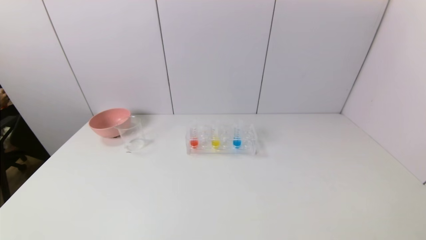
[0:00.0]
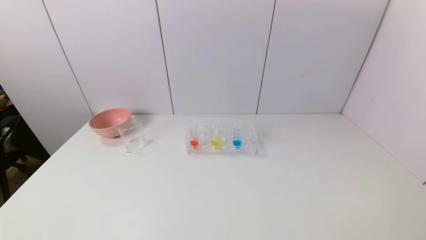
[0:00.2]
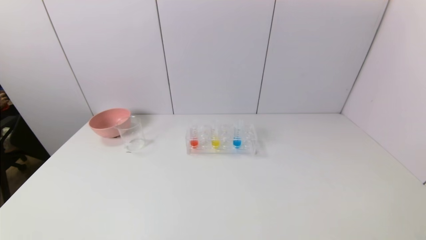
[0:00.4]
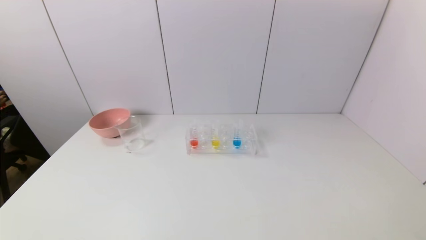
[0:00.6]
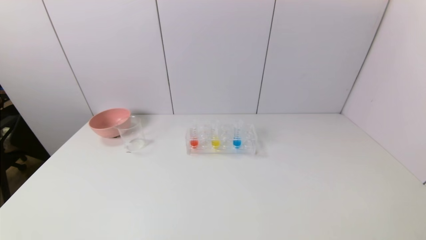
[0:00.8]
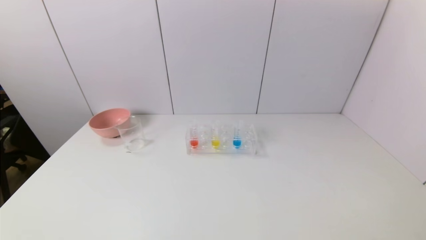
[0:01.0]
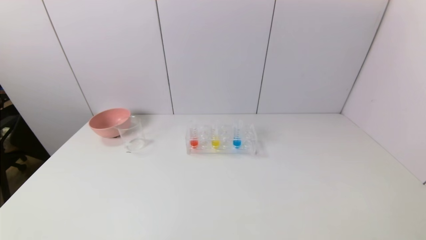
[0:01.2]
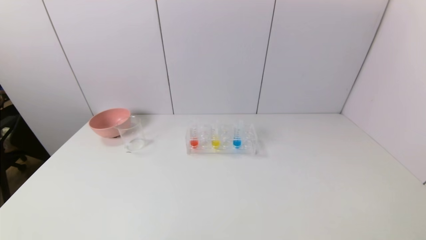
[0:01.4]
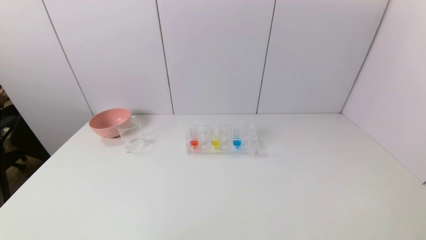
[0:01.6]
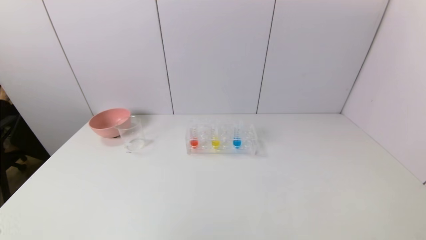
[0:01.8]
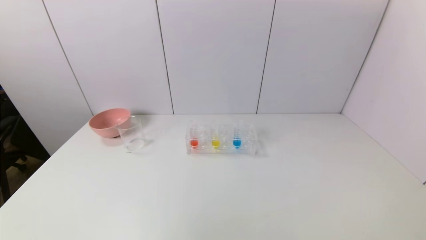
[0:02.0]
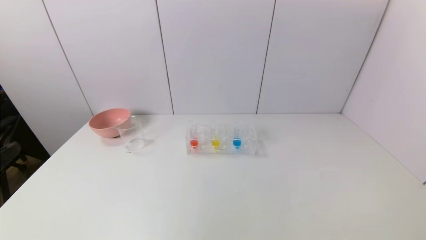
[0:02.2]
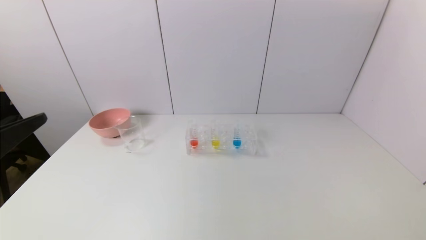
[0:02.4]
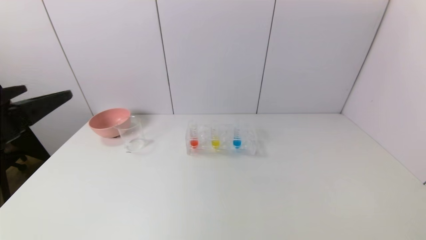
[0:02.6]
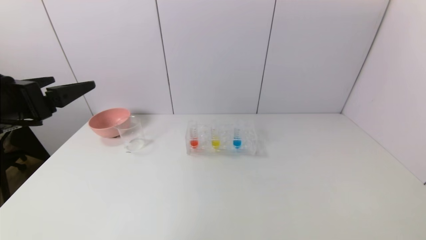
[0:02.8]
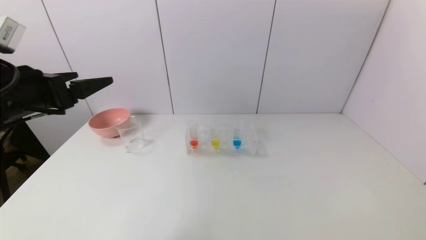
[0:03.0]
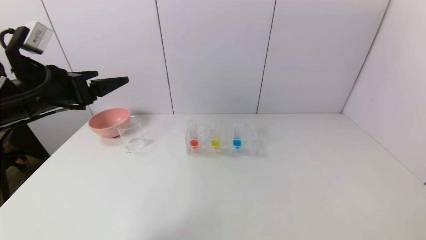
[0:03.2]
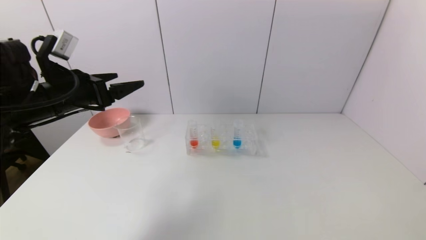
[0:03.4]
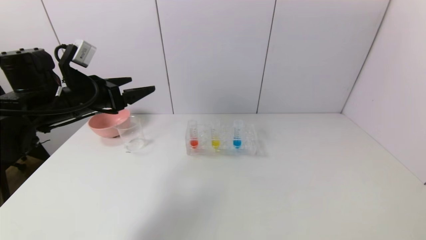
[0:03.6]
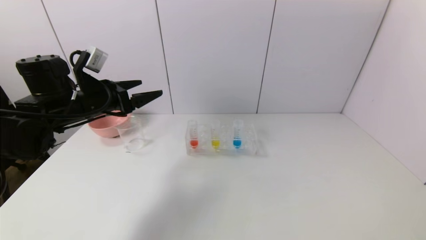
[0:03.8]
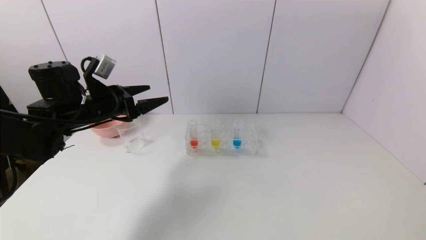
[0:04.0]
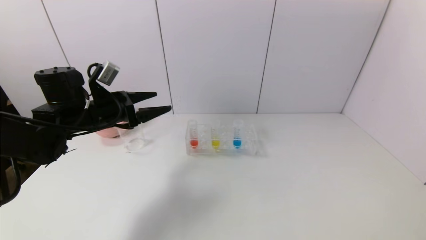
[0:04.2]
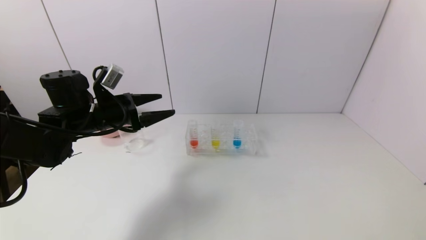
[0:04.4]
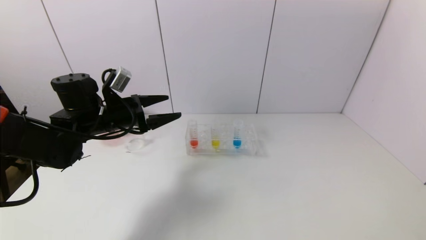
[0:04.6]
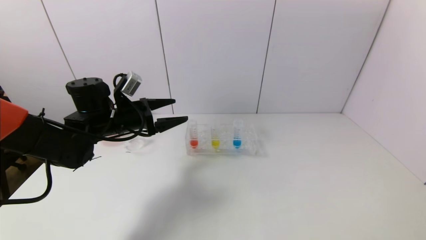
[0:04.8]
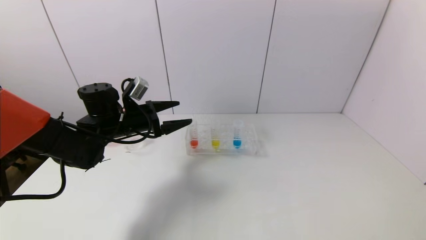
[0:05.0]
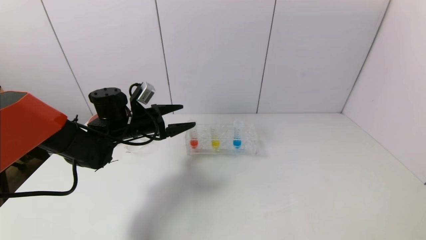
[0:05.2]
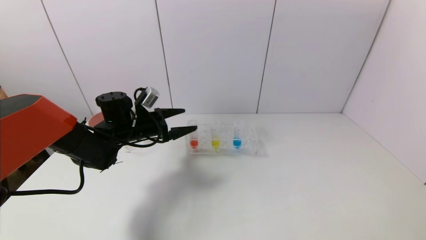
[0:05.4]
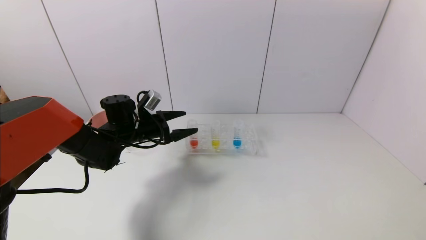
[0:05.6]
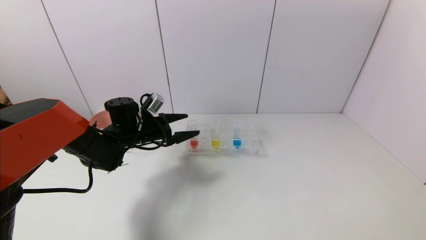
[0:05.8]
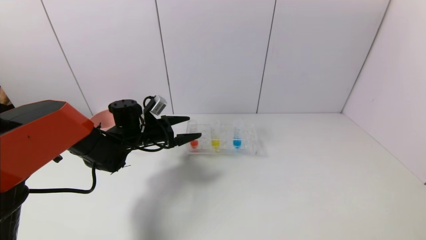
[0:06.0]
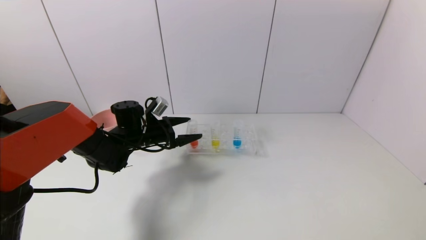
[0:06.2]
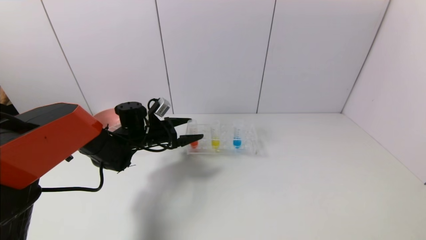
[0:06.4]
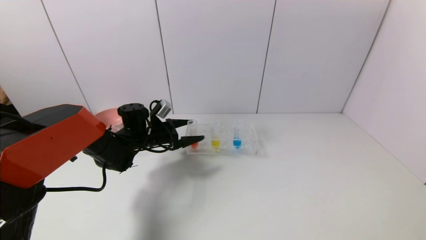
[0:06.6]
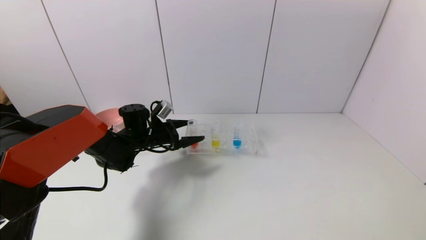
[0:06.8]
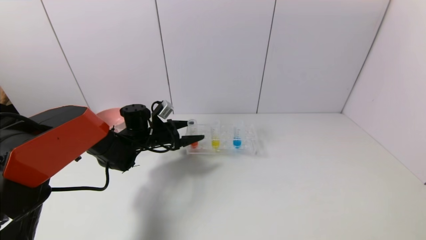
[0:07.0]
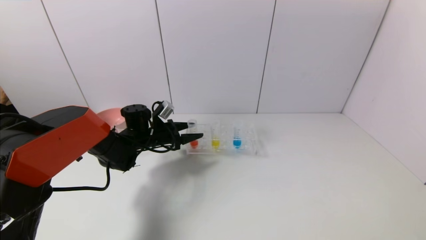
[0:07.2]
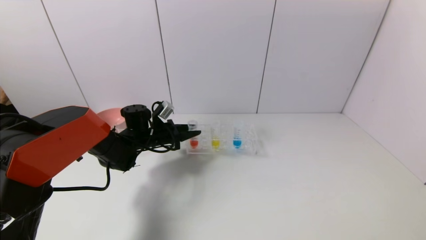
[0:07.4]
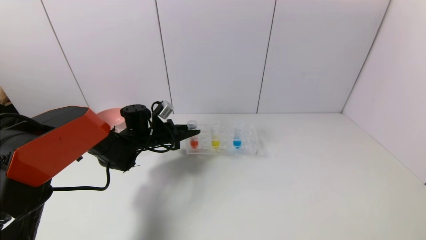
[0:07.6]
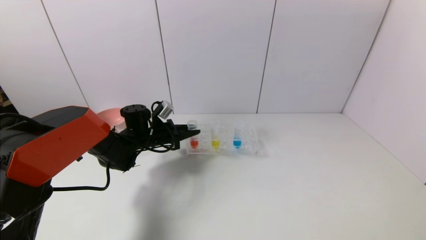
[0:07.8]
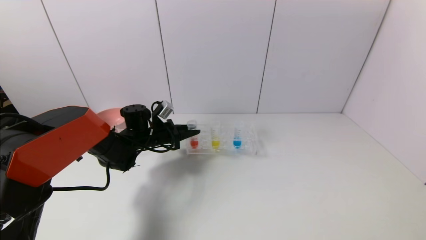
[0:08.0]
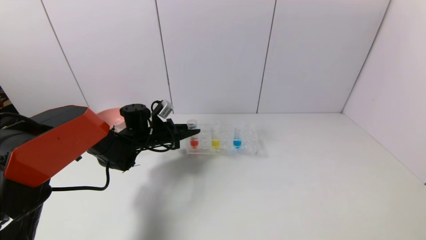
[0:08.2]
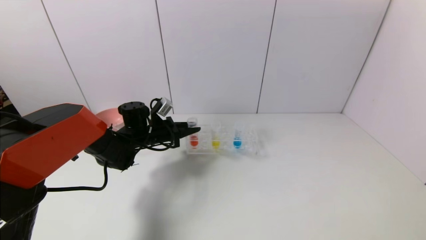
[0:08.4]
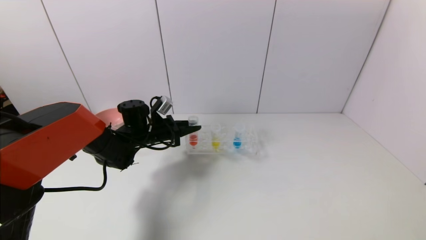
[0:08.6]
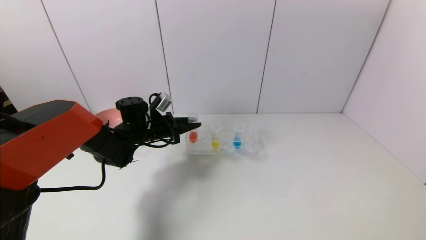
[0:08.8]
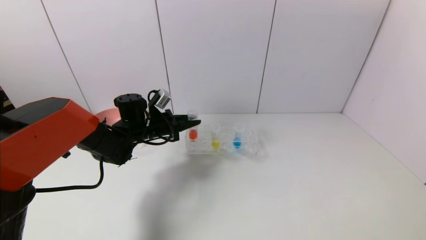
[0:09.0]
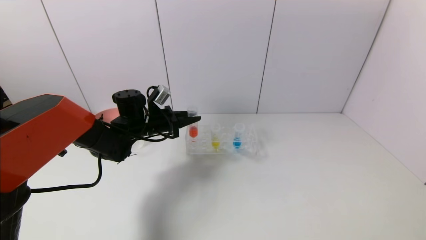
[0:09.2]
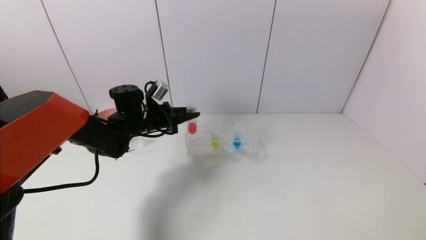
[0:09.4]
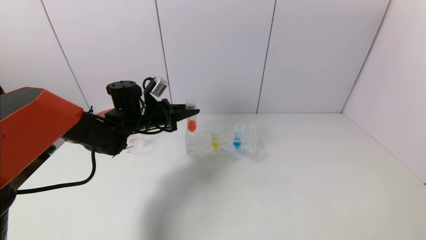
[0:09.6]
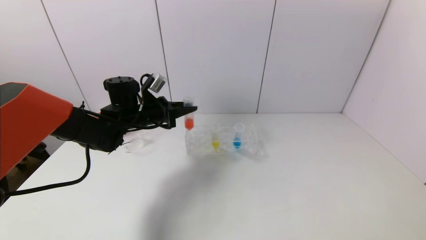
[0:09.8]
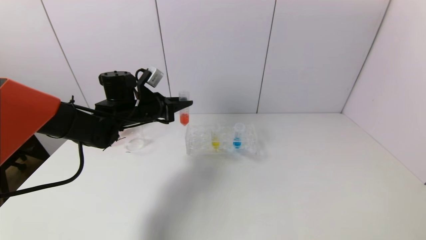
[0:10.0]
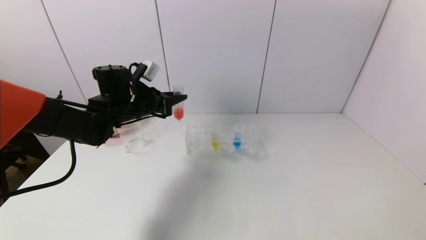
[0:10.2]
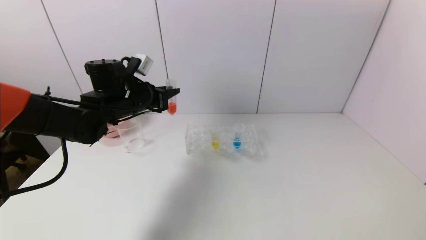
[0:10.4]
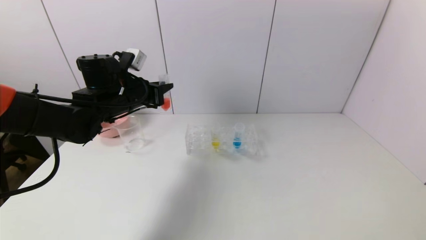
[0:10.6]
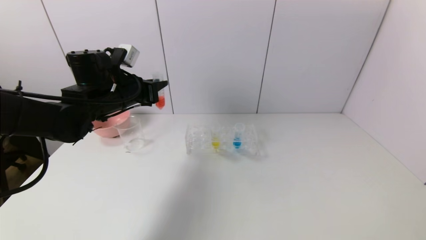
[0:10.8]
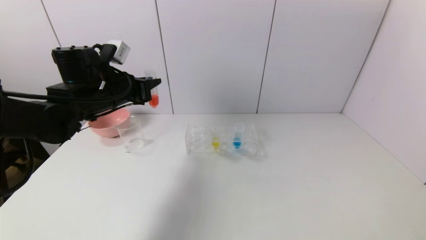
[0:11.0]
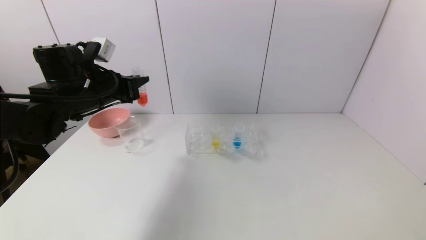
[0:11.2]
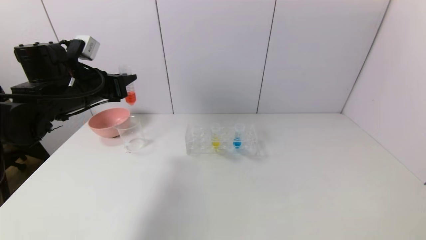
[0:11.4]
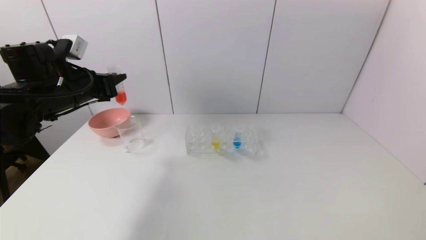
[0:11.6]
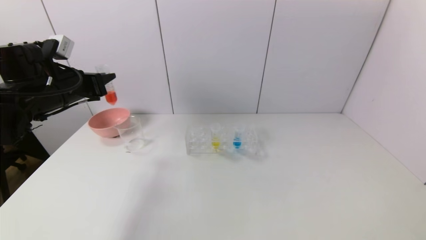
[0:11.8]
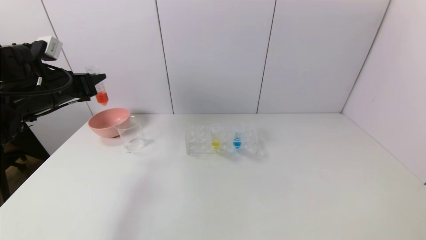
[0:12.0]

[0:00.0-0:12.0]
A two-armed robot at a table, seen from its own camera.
Task of the whole recording: pick up the test tube with red pigment and the test tube with blue pigment by grippers and pour them into the container.
Step, 0:00.0 to 0:08.0: Grasp the red reagent with the left gripper.
0:01.6 to 0:03.0: The left gripper is displaced forward and upward by about 30 cm.
0:03.0 to 0:04.4: The left gripper is displaced forward and downward by some 15 cm.
0:04.4 to 0:06.0: The left gripper heads downward, forward and to the right, covering about 10 cm.
0:06.0 to 0:07.6: The left gripper closes.
0:07.6 to 0:09.0: The grippers move only a little.
0:09.0 to 0:10.4: The left gripper shifts about 10 cm upward.
0:10.4 to 0:12.0: The left gripper moves to the left, roughly 15 cm.

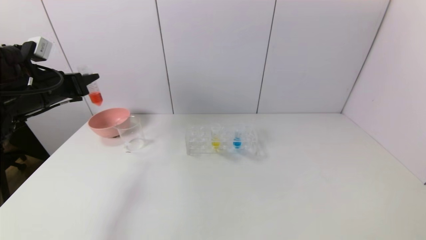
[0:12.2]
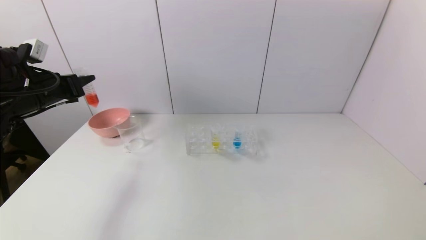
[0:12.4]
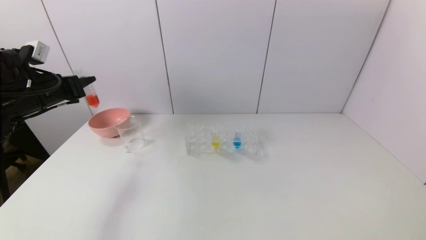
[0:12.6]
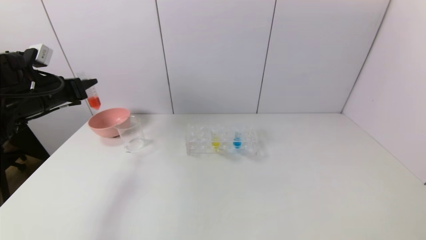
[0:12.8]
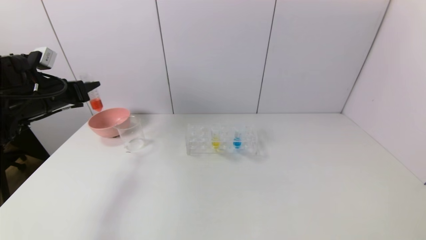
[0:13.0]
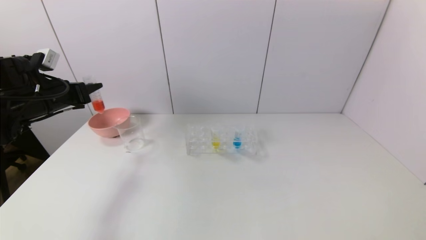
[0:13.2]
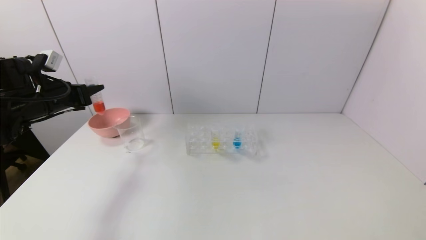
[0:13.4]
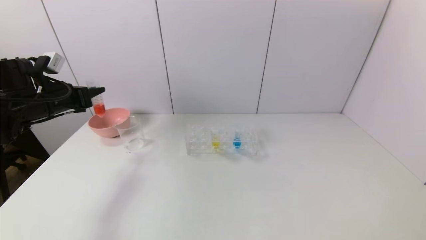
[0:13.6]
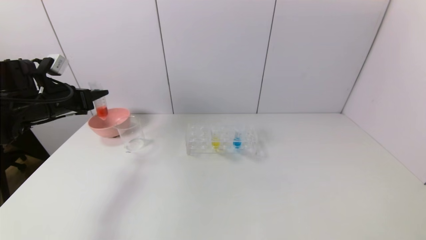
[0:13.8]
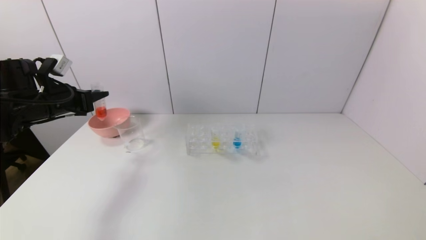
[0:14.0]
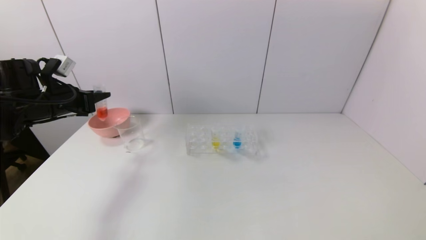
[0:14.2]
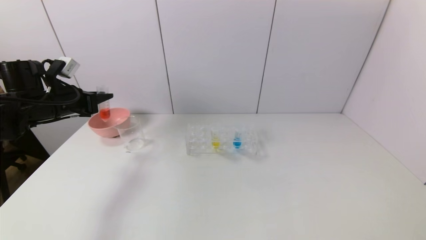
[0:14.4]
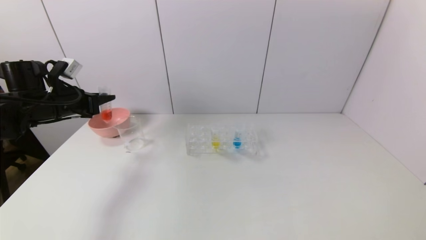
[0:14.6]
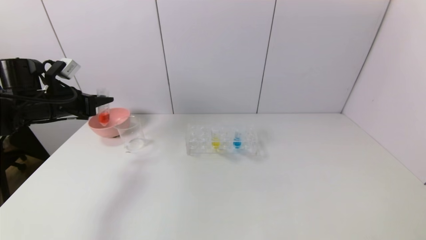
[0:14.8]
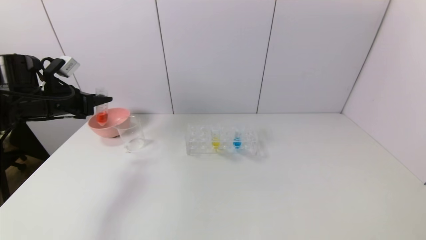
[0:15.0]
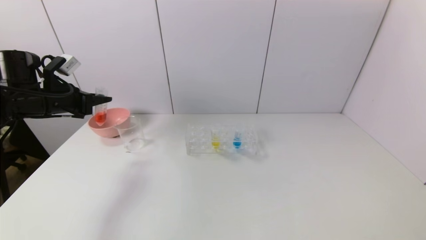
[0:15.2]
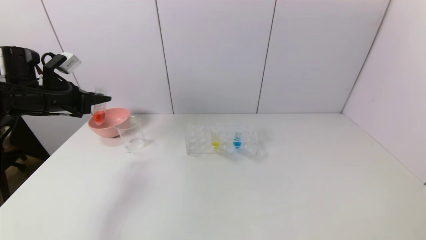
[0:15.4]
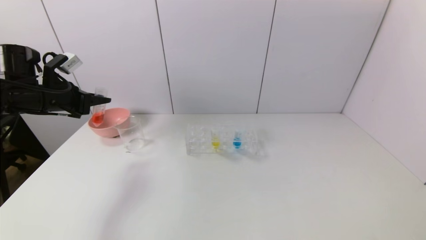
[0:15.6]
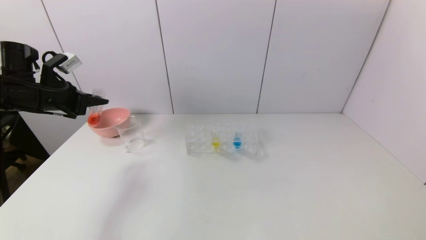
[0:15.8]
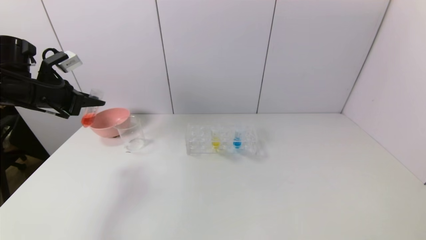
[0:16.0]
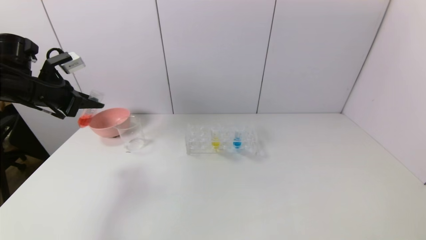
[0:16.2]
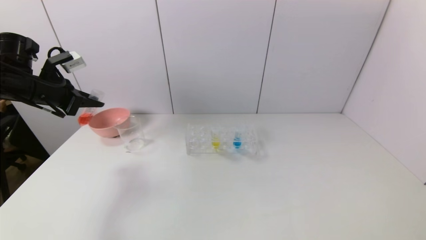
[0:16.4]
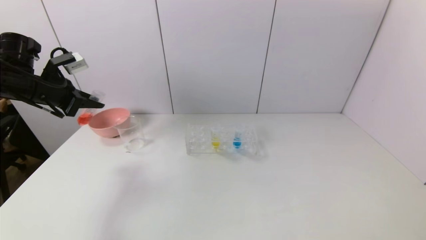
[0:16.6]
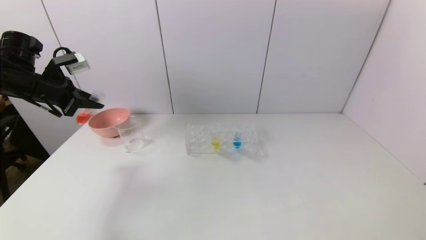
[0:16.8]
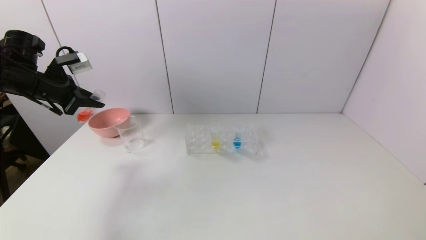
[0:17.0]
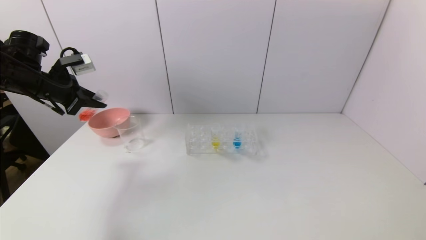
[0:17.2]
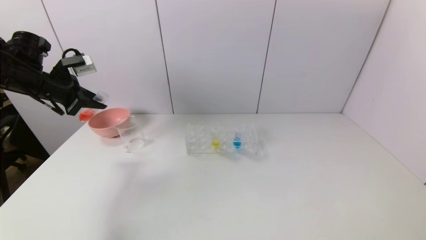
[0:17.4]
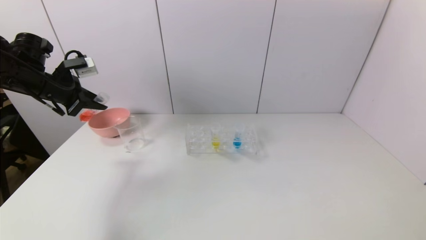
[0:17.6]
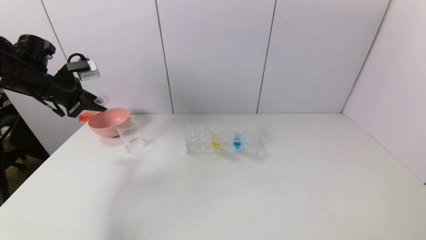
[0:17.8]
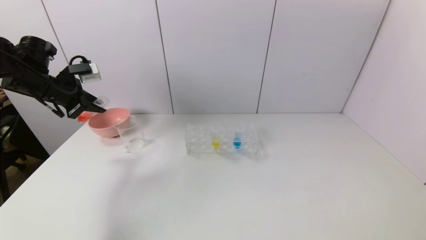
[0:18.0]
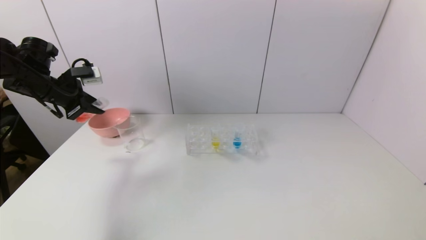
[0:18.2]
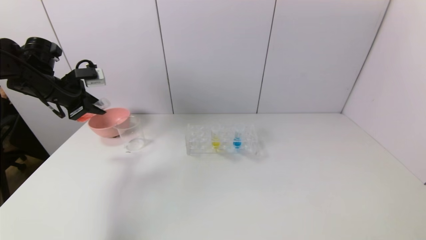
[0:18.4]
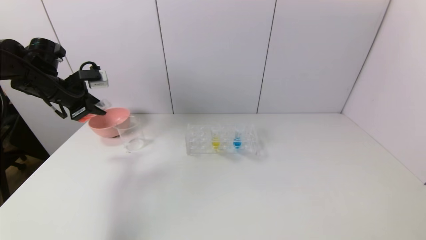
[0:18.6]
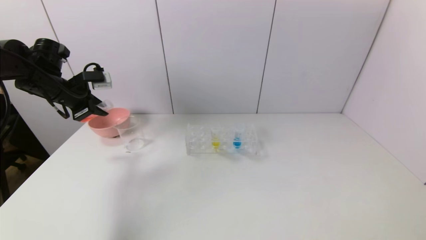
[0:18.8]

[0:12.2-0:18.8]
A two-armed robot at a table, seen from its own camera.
Task of the whole recording: pick up the test tube with red pigment and the test tube with blue pigment by grippers and pour them into the container.
0:12.2 to 0:13.8: There are only small adjustments of the grippers.
0:13.8 to 0:15.4: The grippers move only a little.
0:17.2 to 0:18.8: The grippers make only small movements.
